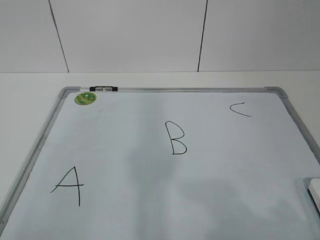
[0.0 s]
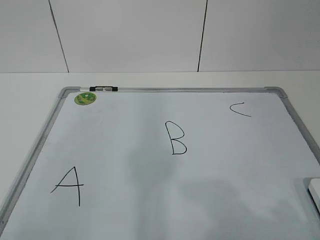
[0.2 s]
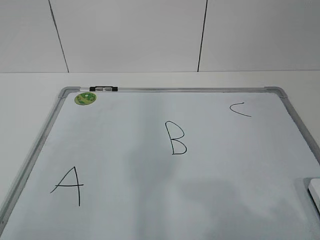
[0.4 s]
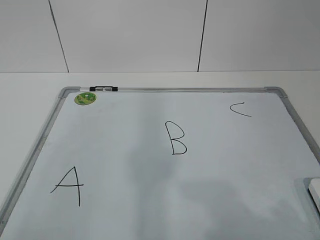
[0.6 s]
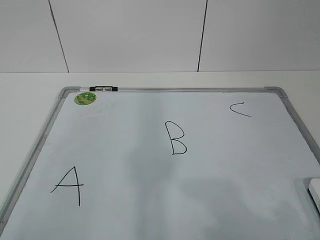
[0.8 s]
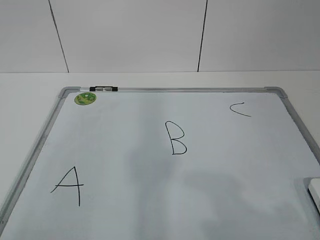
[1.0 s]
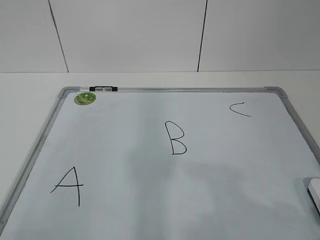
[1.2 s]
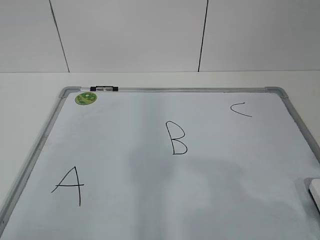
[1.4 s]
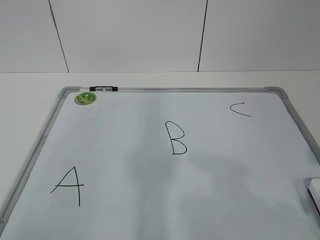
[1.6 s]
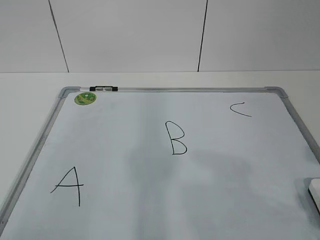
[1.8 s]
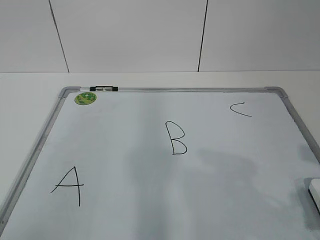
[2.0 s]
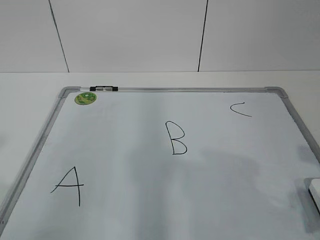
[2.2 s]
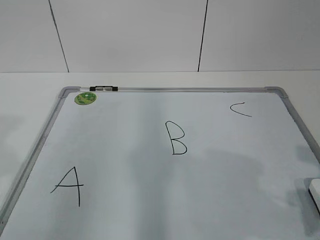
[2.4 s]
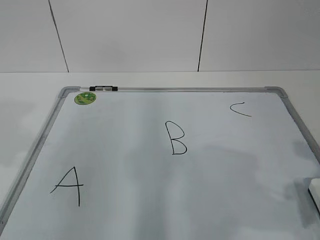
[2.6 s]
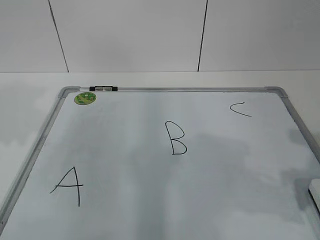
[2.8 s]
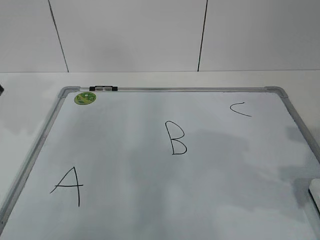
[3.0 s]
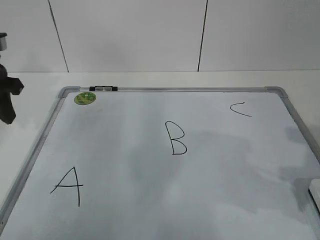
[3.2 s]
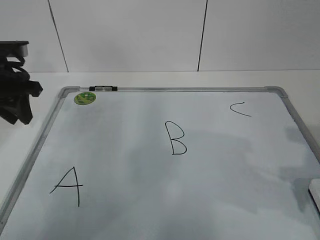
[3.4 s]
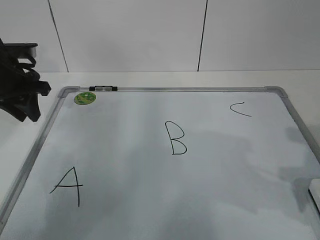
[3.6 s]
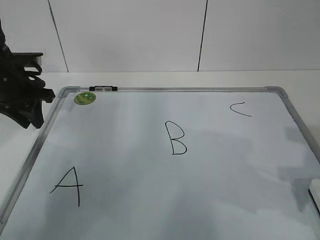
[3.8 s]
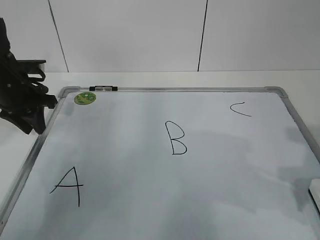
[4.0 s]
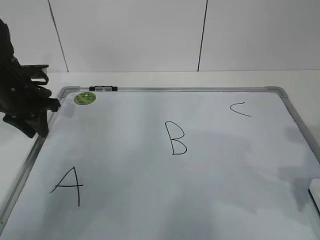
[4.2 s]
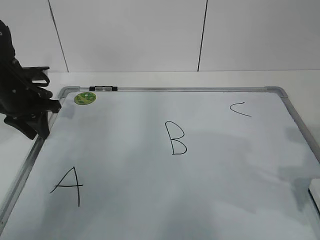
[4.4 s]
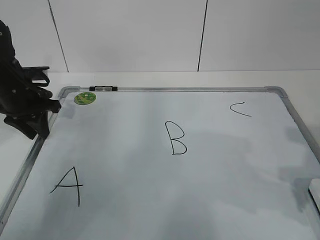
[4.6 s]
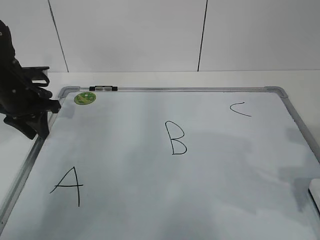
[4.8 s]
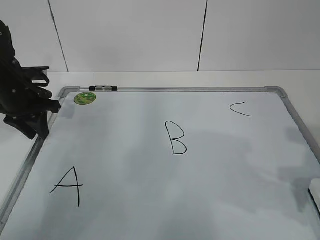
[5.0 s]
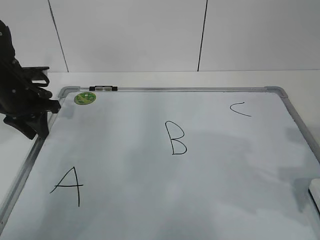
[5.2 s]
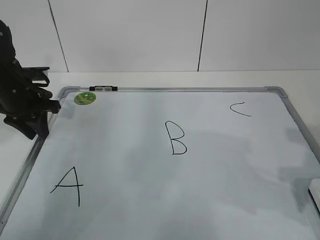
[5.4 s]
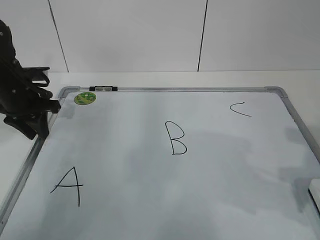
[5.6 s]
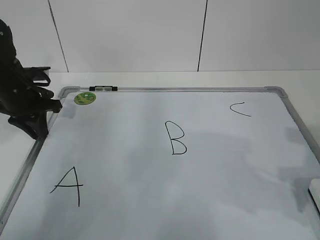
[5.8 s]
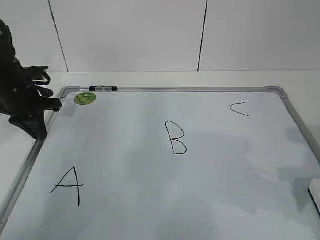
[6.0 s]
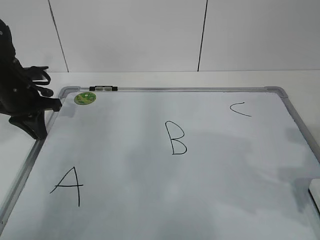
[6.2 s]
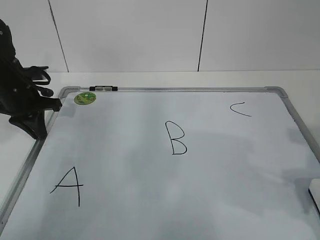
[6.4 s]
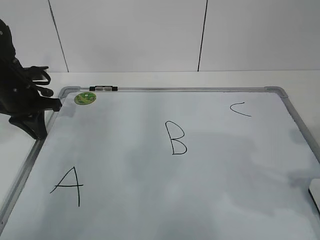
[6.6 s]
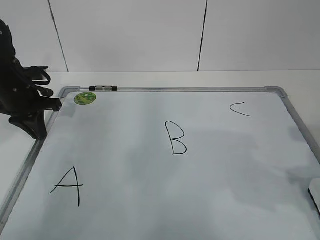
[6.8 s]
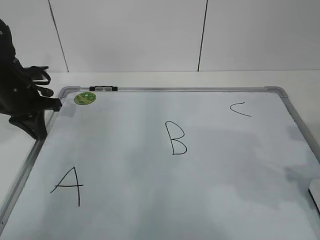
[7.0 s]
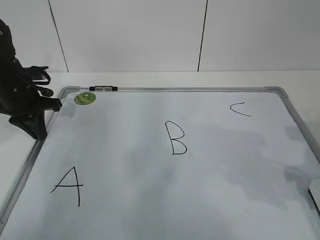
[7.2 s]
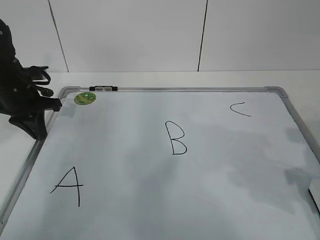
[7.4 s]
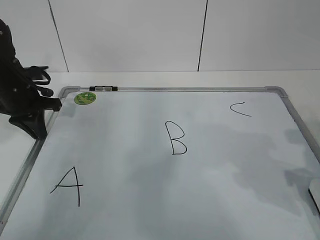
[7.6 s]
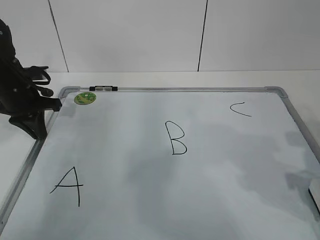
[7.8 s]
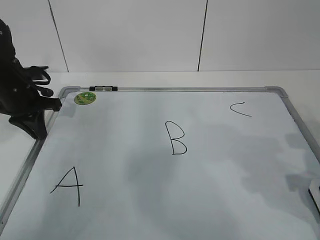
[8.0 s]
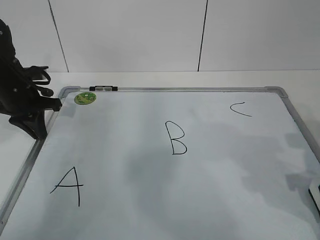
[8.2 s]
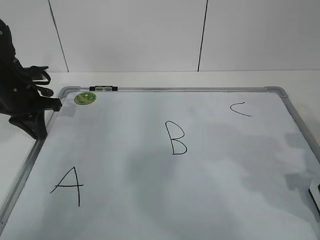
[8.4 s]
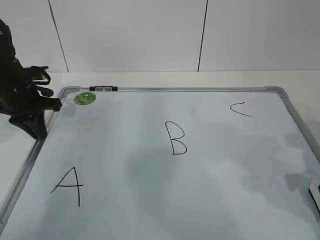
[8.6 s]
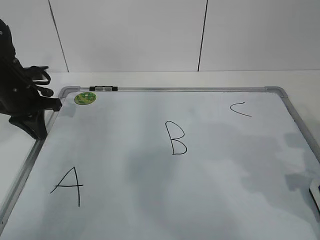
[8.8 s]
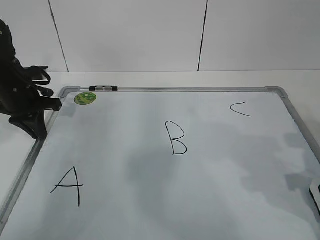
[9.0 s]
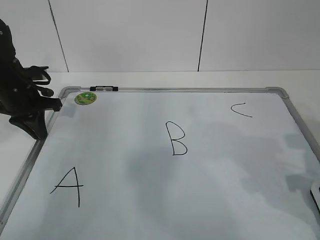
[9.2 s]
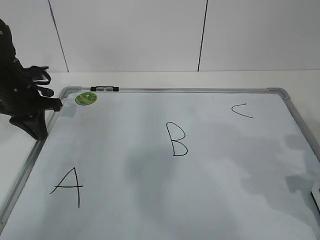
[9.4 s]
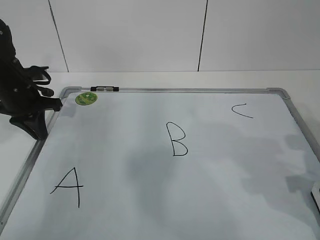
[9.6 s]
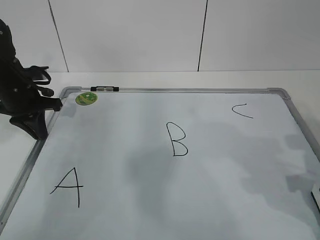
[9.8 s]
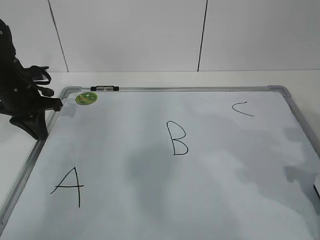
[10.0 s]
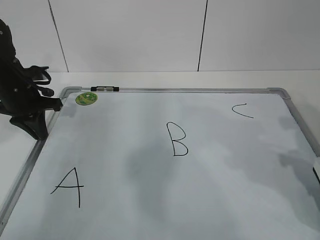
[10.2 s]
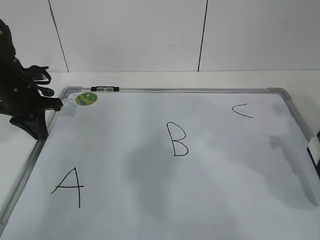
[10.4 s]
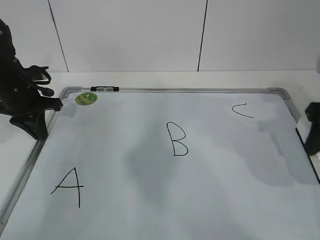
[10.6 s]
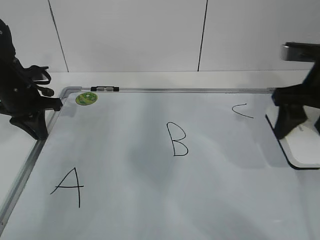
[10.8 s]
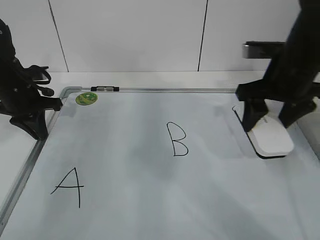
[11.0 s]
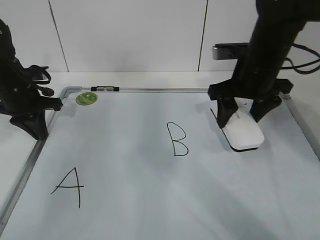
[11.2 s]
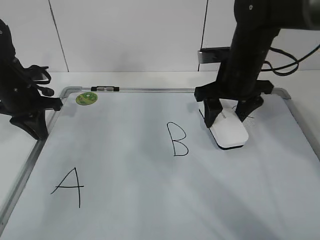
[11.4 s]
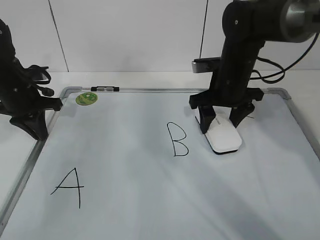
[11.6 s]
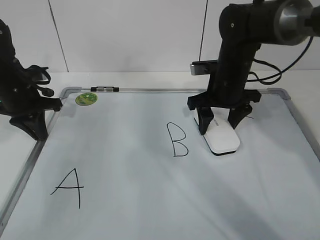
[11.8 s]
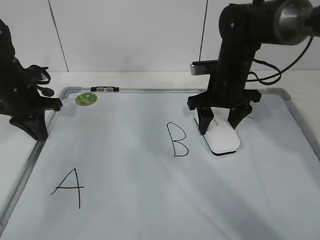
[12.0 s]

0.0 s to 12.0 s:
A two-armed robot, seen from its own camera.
Task of the whole recording: pick up the eraser on the blackboard and erase the letter "B".
Step, 0.0 to 4.8 s: Hold the drawing board steady with your left hand.
1.6 to 3.0 s: The left gripper is displaced forward by some 30 cm. The right gripper heads forward, covering approximately 10 cm.
3.0 to 4.4 s: The left gripper heads forward and downward, covering about 15 cm.
4.4 to 6.0 s: The left gripper closes.
9.0 to 10.4 s: The right gripper goes approximately 5 cm upward.
10.4 to 12.0 s: The right gripper travels forward and to the left by roughly 25 cm.

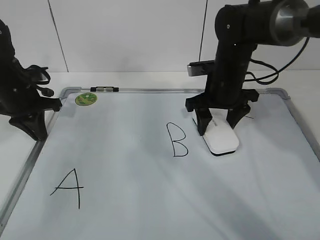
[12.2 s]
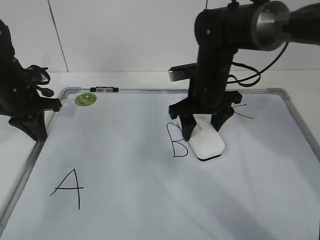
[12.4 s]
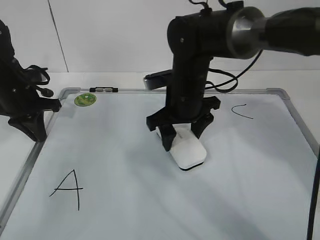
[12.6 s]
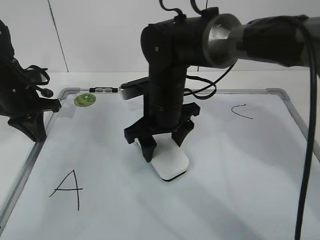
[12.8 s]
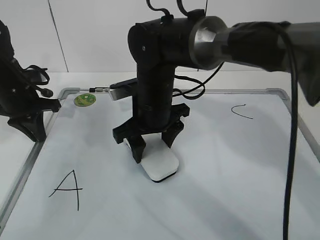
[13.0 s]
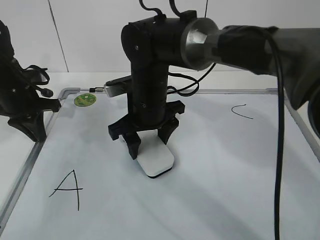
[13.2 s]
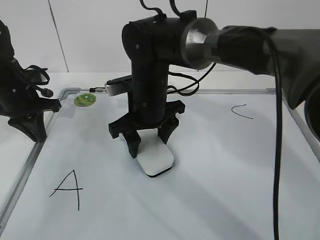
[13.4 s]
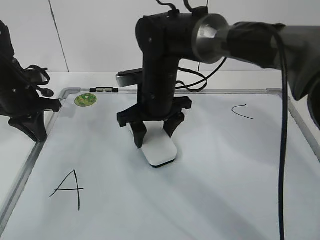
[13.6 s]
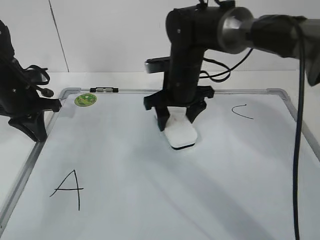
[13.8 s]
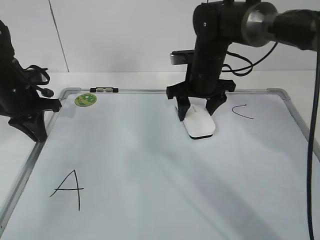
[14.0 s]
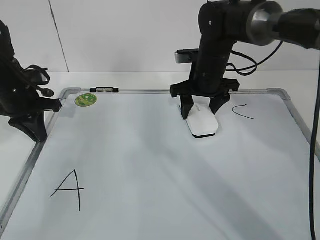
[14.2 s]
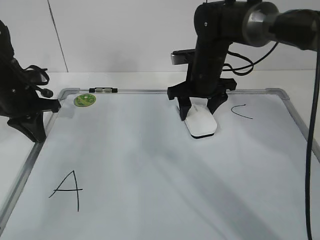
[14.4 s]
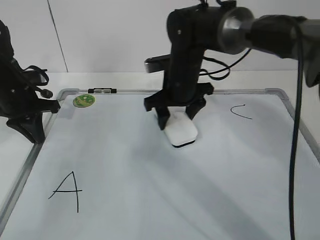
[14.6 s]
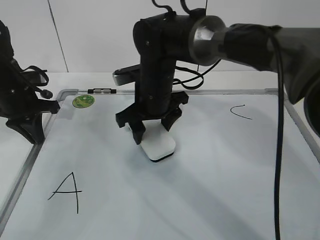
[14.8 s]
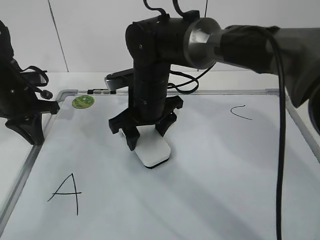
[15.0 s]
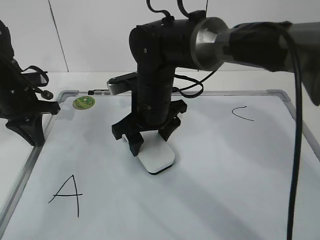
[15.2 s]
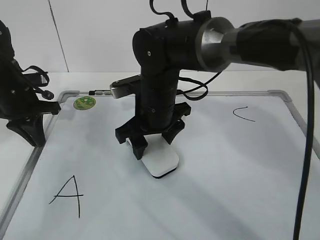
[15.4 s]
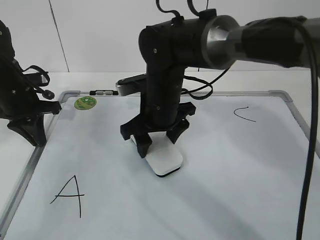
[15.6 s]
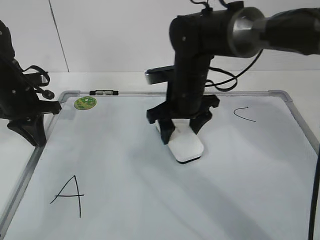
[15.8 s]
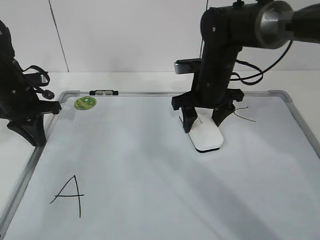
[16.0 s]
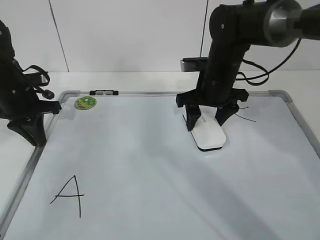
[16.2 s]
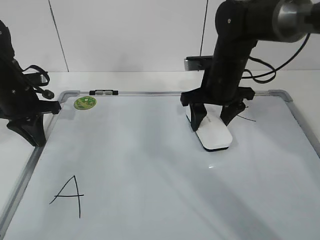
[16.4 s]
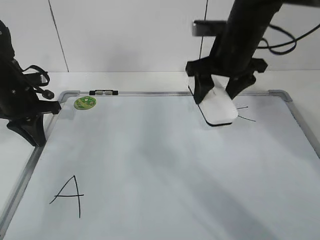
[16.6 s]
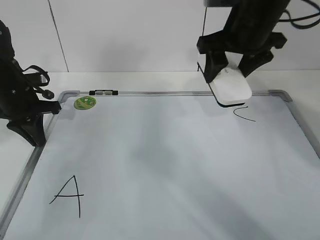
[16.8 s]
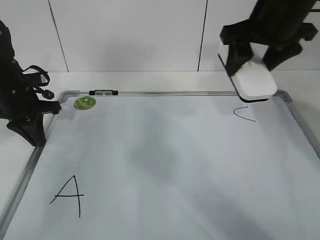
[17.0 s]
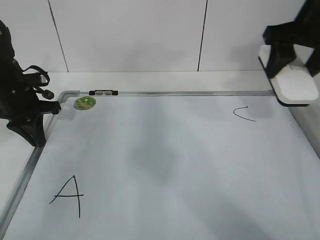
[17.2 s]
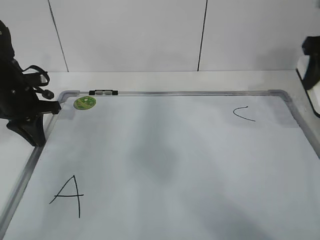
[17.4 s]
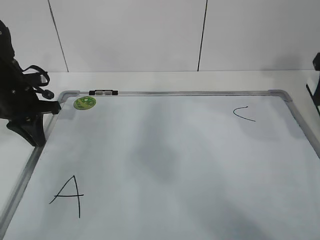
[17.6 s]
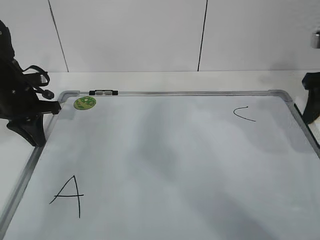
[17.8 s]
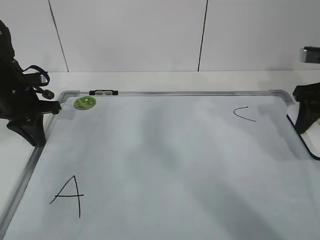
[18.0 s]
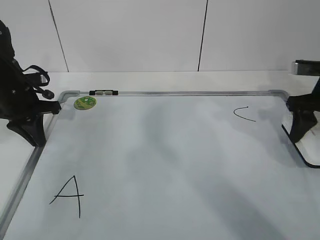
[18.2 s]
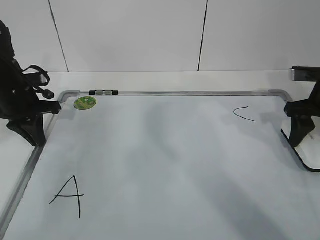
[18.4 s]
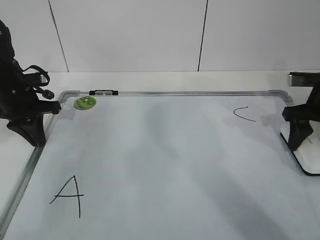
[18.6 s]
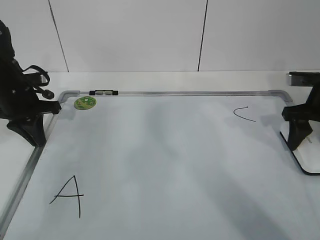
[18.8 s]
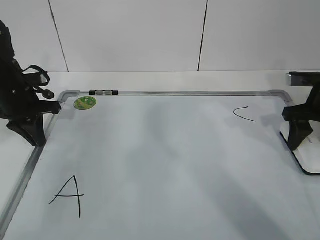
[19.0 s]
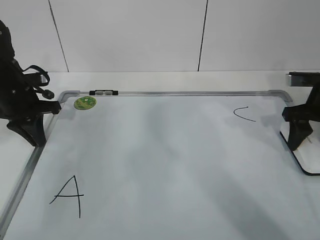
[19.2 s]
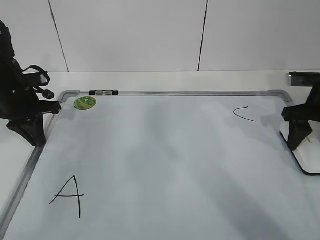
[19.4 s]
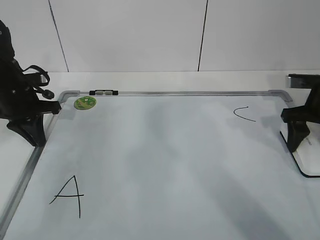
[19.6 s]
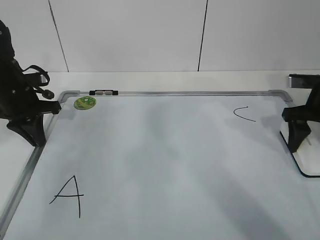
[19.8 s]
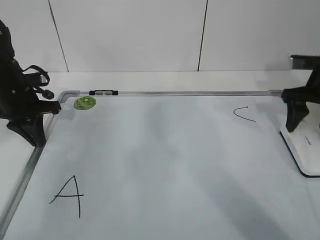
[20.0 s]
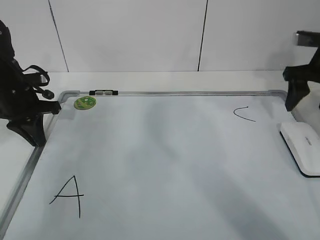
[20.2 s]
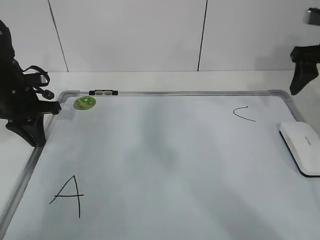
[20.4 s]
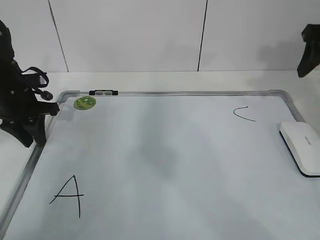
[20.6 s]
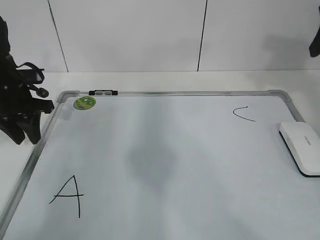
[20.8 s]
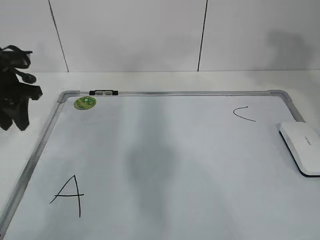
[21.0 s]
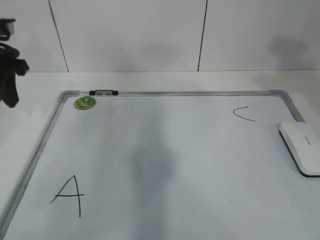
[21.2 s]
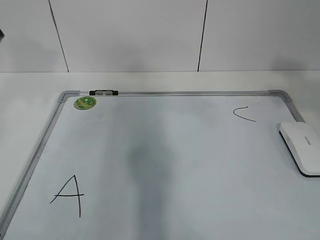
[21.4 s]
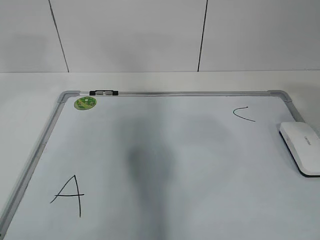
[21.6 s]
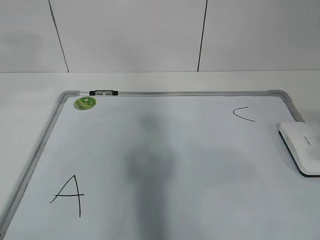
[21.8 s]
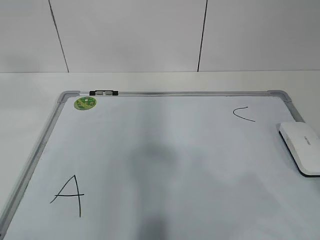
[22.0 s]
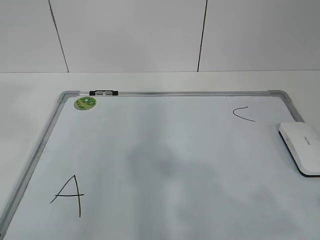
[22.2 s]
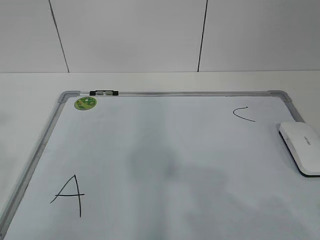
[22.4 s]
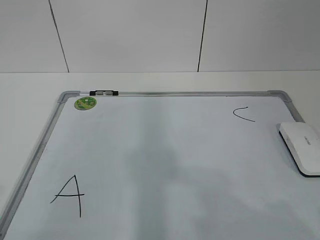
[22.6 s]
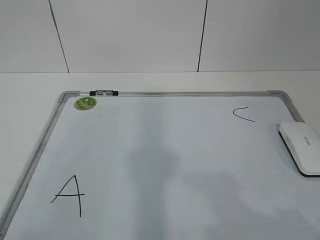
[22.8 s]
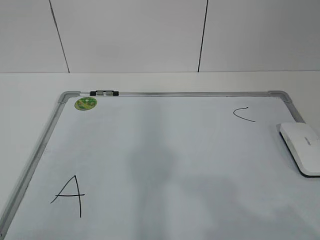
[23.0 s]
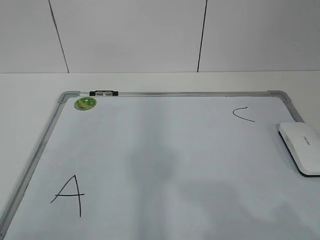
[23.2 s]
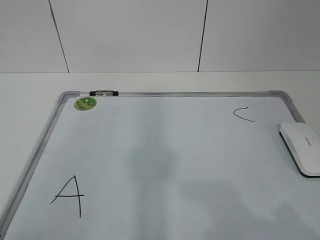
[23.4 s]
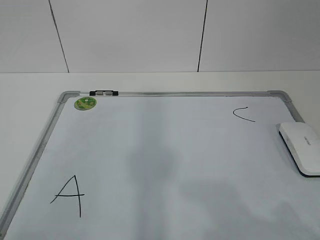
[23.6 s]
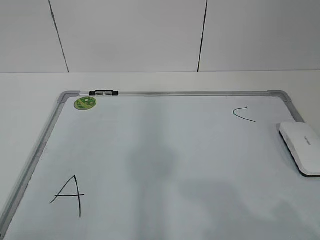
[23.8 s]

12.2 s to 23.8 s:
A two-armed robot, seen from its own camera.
Task of the whole recording: pick up the eraser on the blackboard and erase the letter "B".
Step, 13.6 to 16.2 s: Put down the eraser with your right hand.
12.2 to 13.6 s: The right gripper moves to the left, approximately 10 cm.
13.6 to 15.0 s: The right gripper moves some 10 cm to the right and comes back.
15.0 to 16.6 s: The right gripper travels to the right and upward by roughly 15 cm.
16.6 to 18.0 s: The right gripper travels to the right by approximately 15 cm.
18.0 to 19.4 s: The right gripper travels downward by about 5 cm.
19.4 to 21.0 s: The left gripper heads upward, covering about 5 cm, and opens its fingers; the right gripper heads upward, covering approximately 20 cm, and opens.
21.0 to 22.4 s: The left gripper is displaced backward and upward by roughly 40 cm. The right gripper goes about 30 cm backward.
